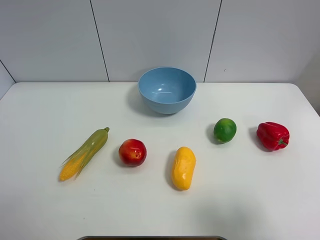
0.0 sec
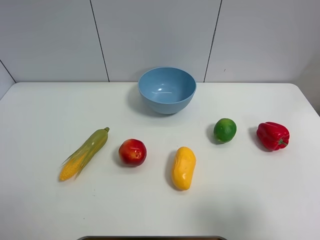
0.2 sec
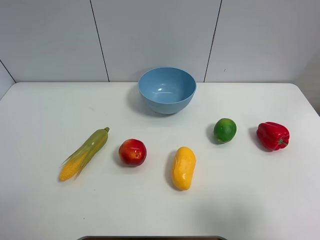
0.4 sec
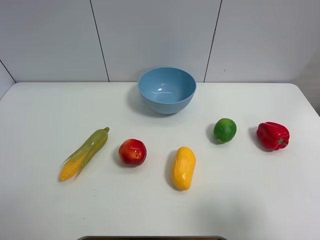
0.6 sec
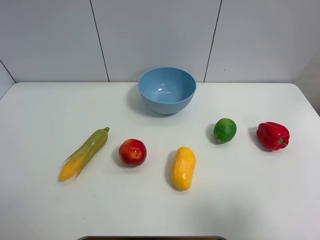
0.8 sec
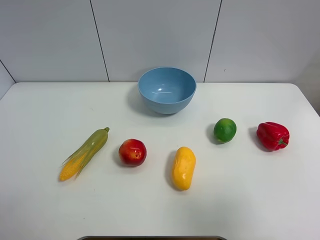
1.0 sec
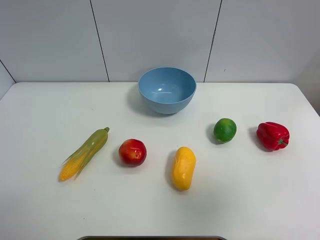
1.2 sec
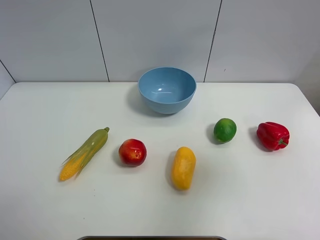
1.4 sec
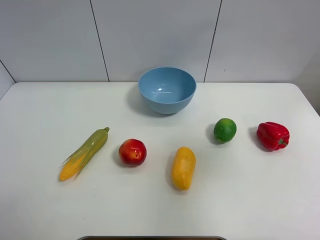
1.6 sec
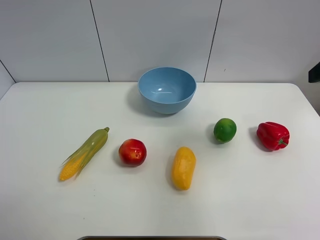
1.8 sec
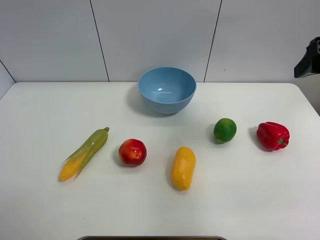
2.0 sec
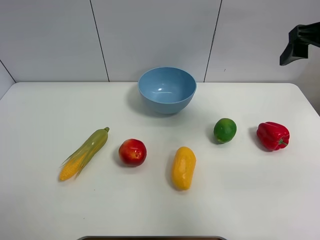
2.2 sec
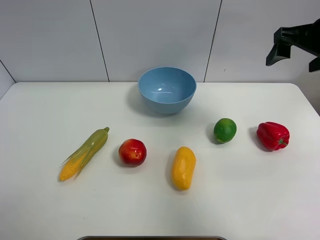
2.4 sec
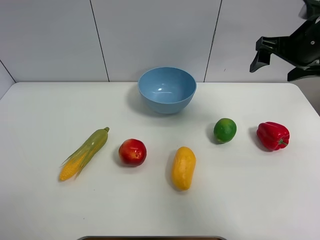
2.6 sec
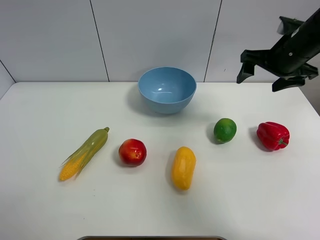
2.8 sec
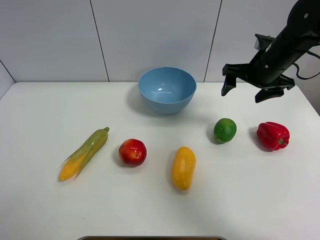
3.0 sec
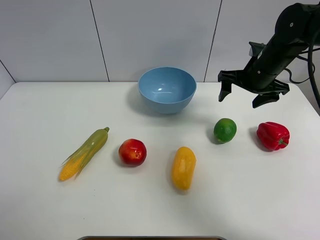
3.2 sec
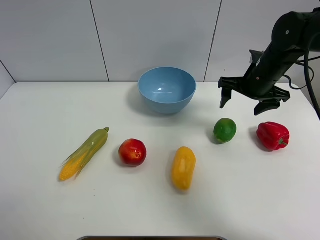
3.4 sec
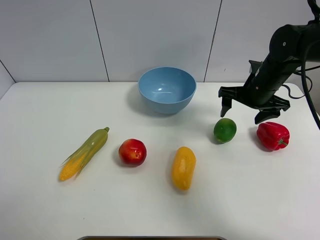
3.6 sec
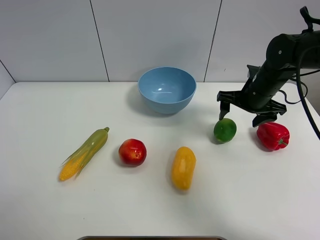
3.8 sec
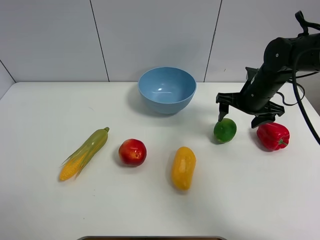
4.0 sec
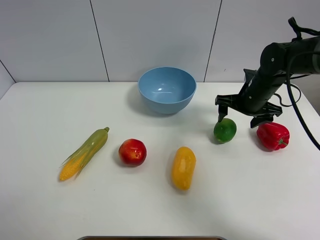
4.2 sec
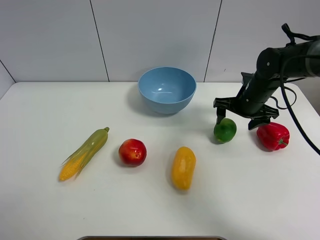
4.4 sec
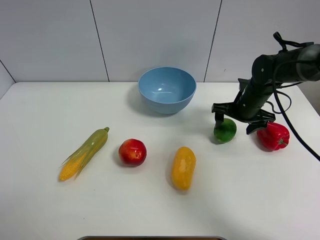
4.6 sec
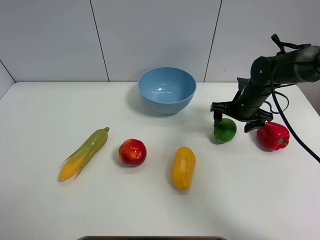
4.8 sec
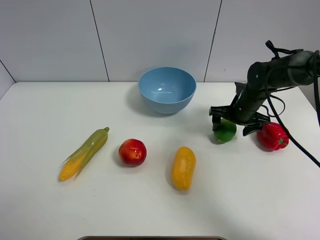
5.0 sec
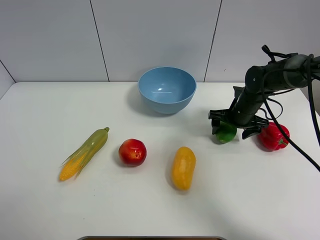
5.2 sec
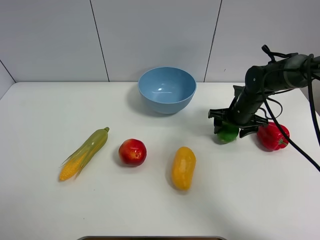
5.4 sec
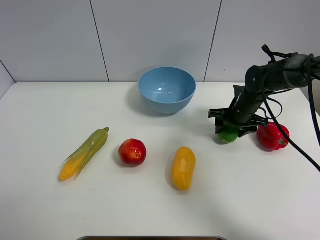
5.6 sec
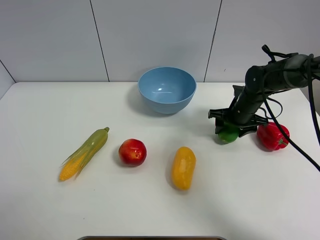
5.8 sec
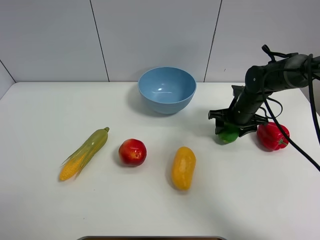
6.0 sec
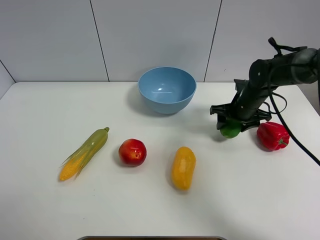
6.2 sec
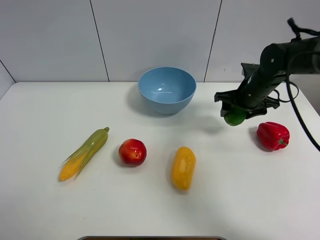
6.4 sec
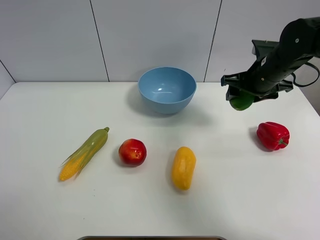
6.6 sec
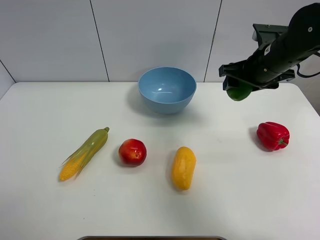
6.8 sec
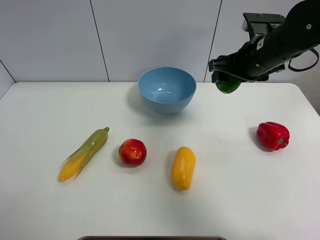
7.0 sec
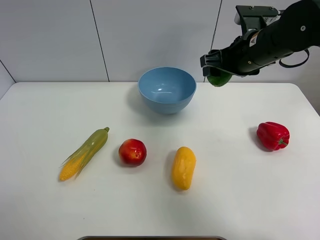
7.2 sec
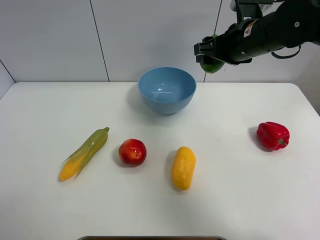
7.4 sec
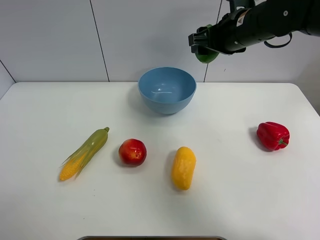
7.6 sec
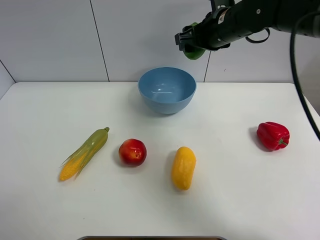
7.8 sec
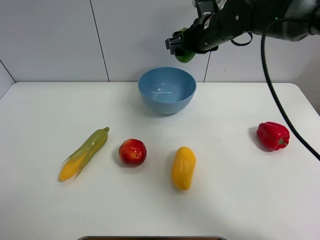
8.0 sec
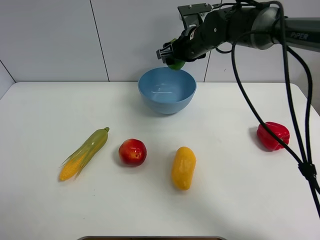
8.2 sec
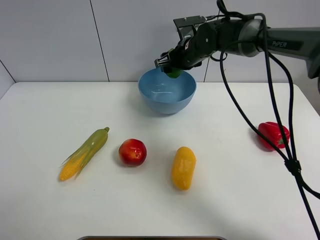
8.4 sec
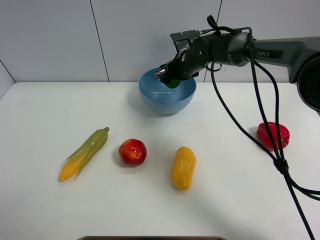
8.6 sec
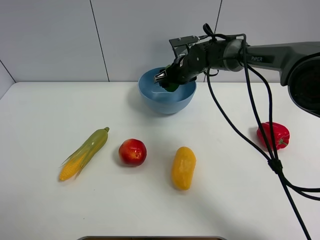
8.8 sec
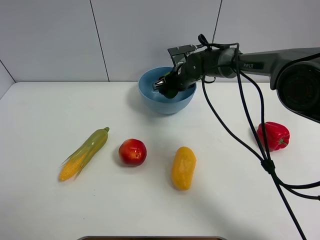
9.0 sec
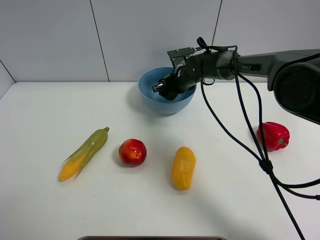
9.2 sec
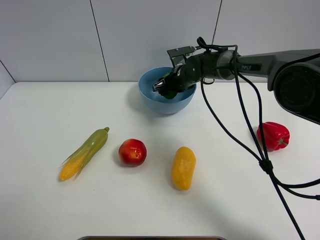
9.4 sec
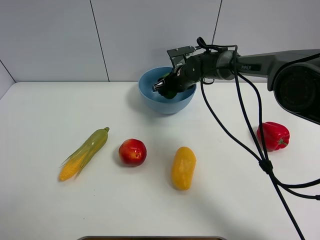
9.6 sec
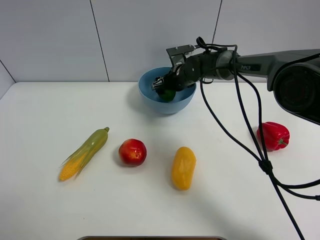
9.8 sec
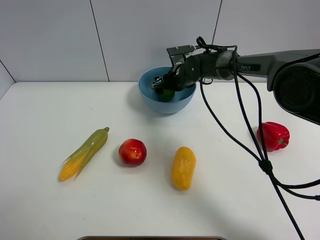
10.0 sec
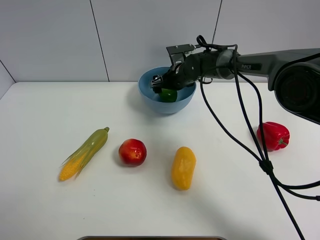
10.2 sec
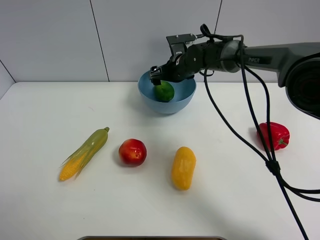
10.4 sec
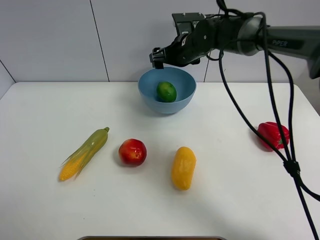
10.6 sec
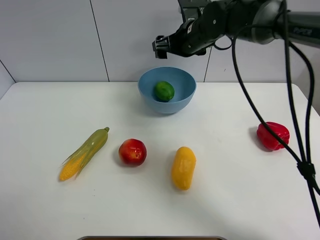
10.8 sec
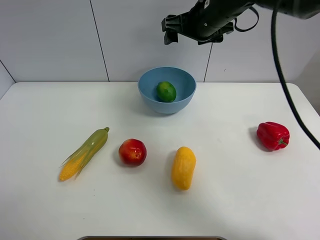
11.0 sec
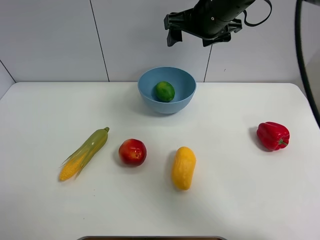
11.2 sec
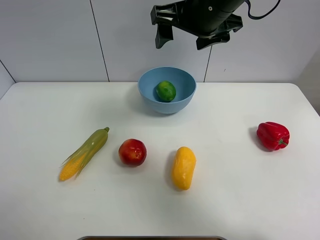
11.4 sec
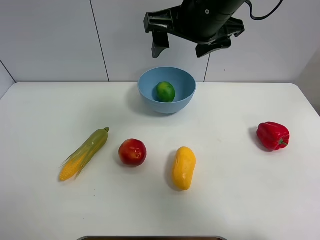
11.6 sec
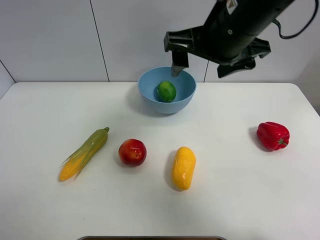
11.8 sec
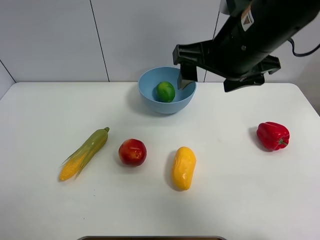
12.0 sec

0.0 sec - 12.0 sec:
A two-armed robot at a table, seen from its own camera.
Task of the whole recording: Put the three fruits on the table into a bowl.
Step, 0.0 sec - 5.6 sec: Grasp the green lemon with right gripper.
Step, 5.8 sec - 10.4 sec: Place the green lemon in the blue bowl with right gripper.
0.0 sec - 1.6 sec: The right gripper goes approximately 20 cm forward and upward.
1.6 sec - 3.0 sec: The right gripper shifts roughly 25 cm forward and downward.
3.0 sec - 4.4 sec: The right gripper moves downward, approximately 10 cm.
4.4 sec - 6.0 sec: The right gripper closes up.
6.0 sec - 7.6 sec: The right gripper travels upward by about 20 cm.
7.6 sec - 9.0 sec: The right gripper travels downward, forward and to the left by approximately 20 cm.
9.0 sec - 10.4 sec: The right gripper opens.
10.4 sec - 12.0 sec: The right gripper goes approximately 30 cm backward and upward.

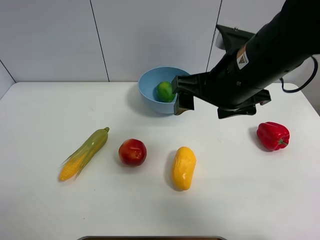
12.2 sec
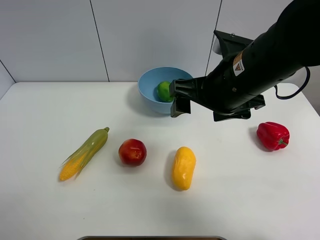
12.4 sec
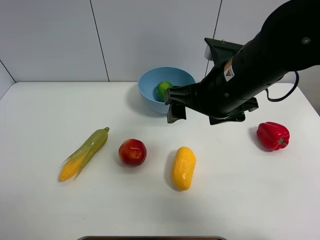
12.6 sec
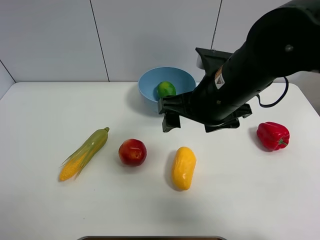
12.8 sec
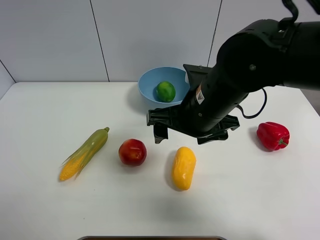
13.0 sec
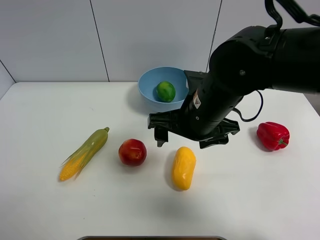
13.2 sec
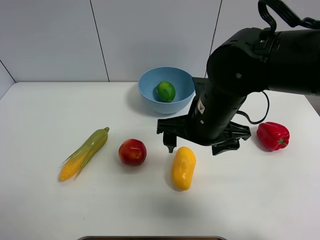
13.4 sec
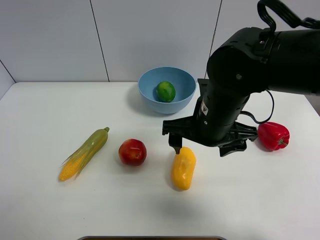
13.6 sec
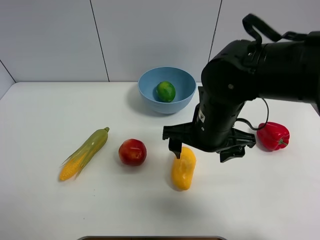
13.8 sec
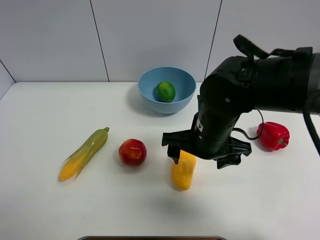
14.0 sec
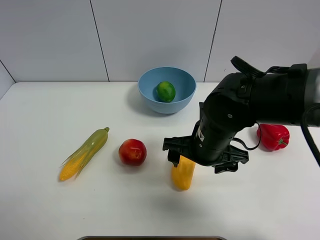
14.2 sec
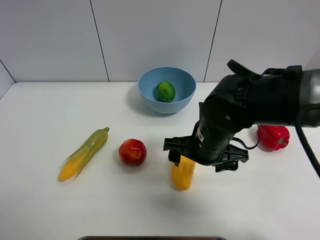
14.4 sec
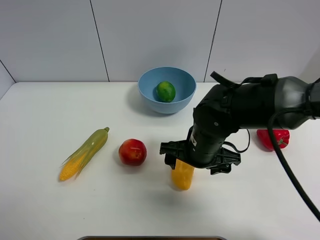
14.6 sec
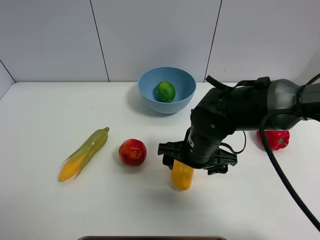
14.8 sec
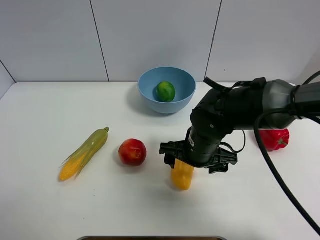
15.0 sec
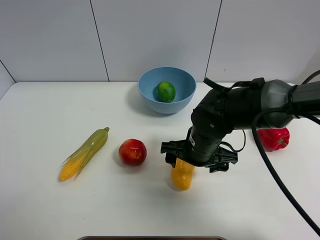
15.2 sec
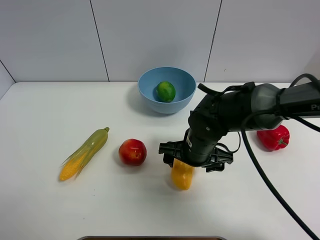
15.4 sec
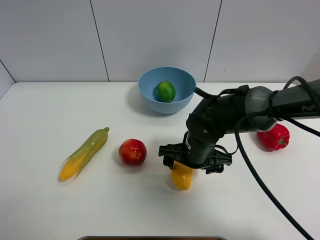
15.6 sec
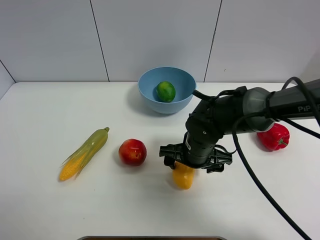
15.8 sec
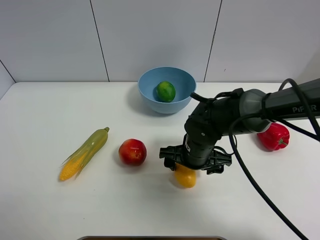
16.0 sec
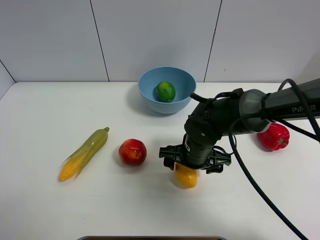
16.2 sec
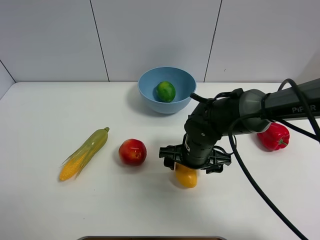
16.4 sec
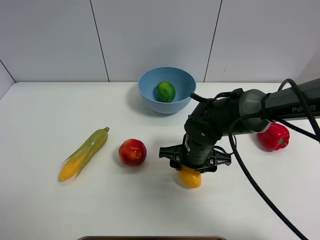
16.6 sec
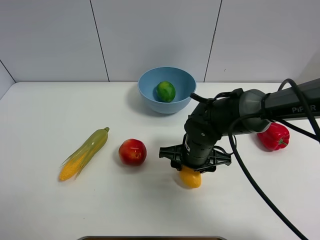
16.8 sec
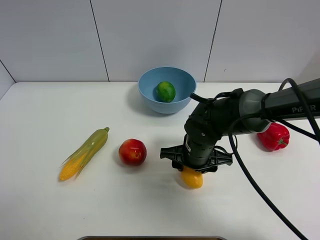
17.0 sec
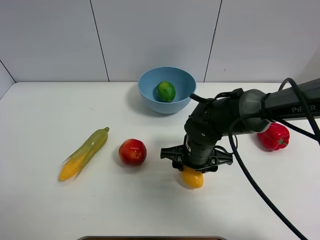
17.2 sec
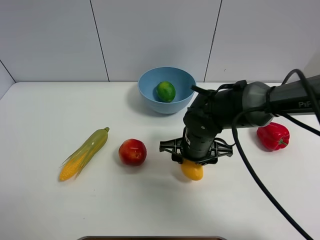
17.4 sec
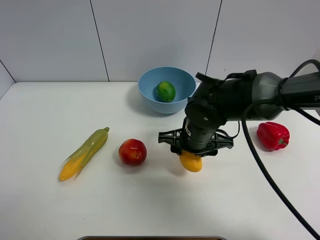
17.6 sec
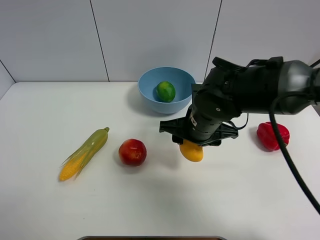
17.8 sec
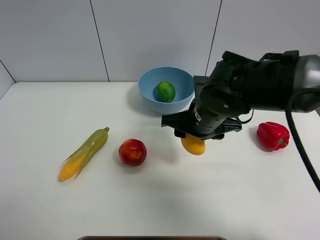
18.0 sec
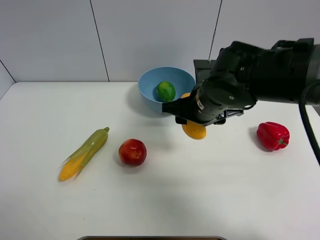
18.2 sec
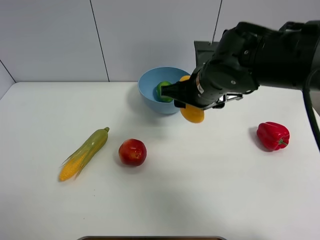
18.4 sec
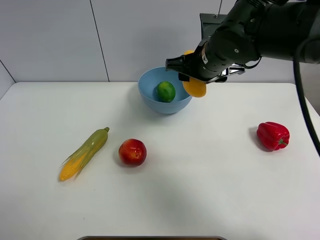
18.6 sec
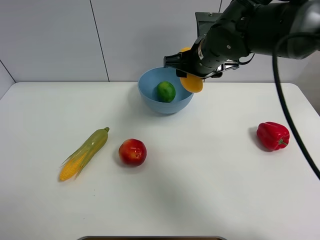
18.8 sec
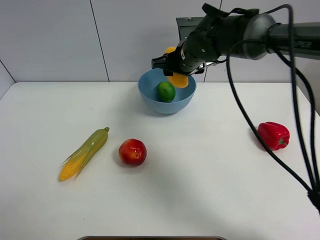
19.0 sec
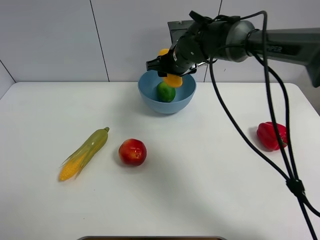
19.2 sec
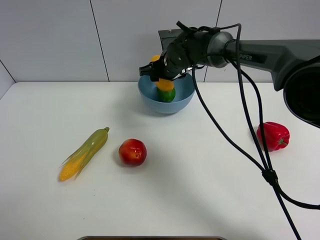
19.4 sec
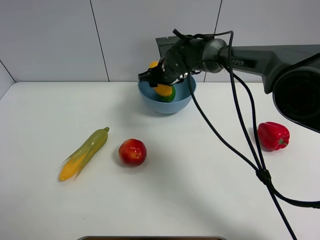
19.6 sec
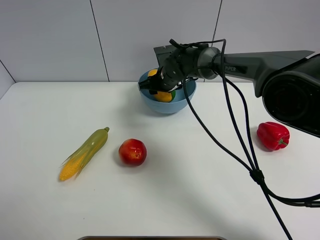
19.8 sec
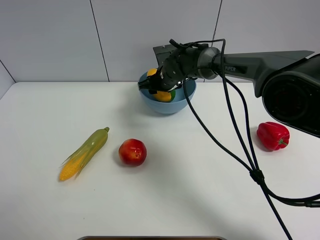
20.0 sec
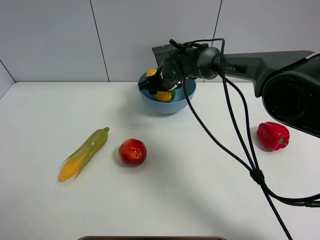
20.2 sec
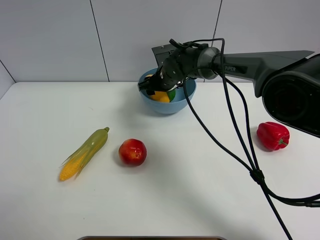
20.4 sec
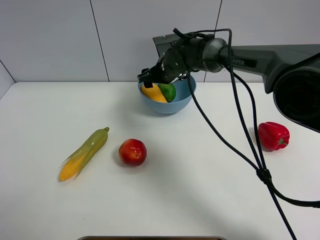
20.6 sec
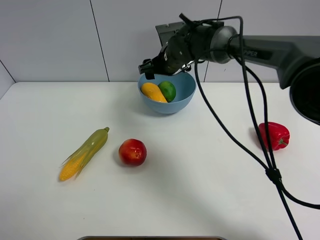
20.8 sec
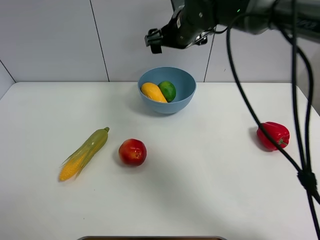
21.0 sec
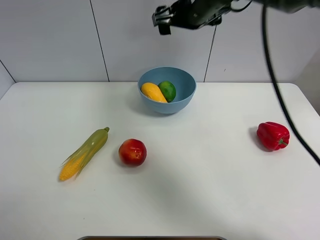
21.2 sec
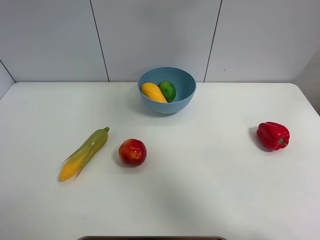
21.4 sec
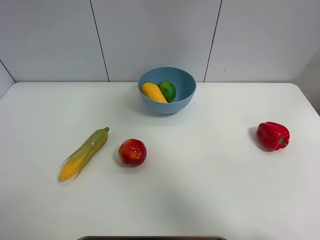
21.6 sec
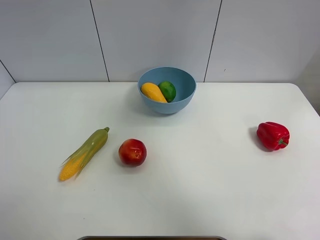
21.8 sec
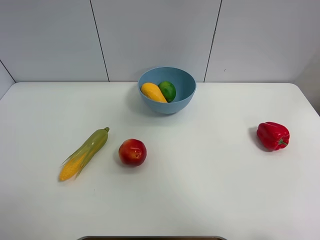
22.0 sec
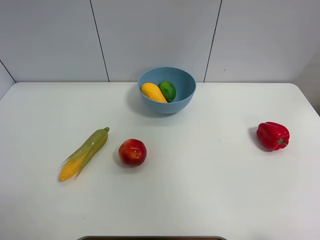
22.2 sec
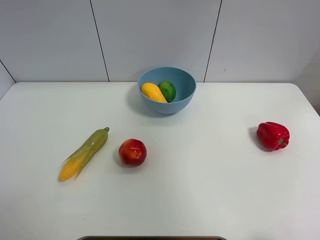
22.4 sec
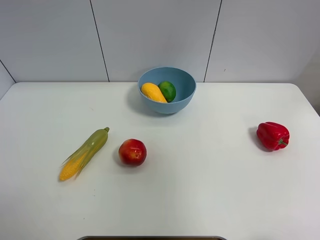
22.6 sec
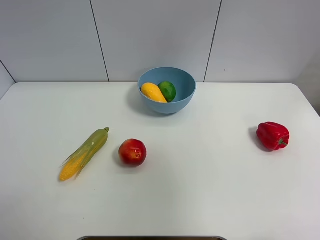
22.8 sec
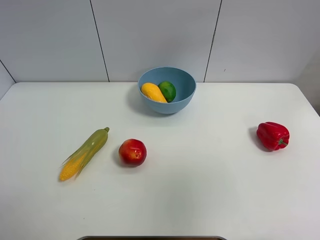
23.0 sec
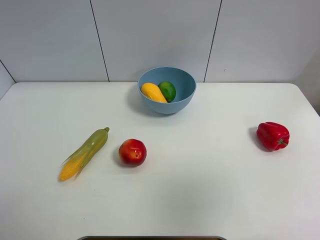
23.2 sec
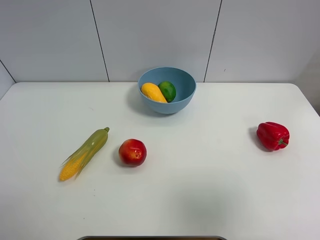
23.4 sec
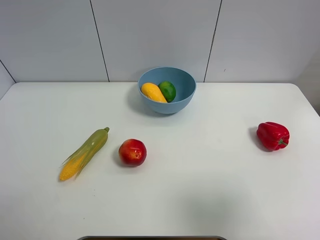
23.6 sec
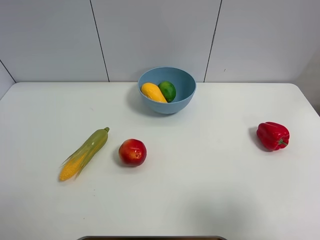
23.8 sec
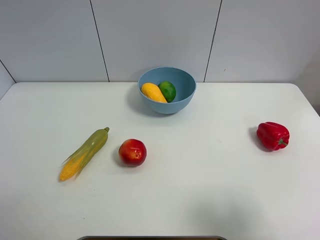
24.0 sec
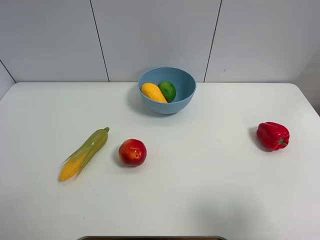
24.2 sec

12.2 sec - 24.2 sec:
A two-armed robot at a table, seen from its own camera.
Task of the whole recording: Put the three fruits on the table into a bowl.
Step, 12.2 sec - 16.8 sec: Grasp the mango with right gripper.
Step, 17.0 sec - 20.6 sec: Place the mango in the blue bowl with right gripper.
12.2 sec - 13.8 sec: The right gripper travels downward by approximately 10 cm.
13.8 sec - 15.2 sec: The right gripper shifts approximately 5 cm downward.
15.2 sec - 16.6 sec: The right gripper closes up.
16.6 sec - 18.2 sec: The right gripper is displaced upward by some 10 cm.
18.2 sec - 19.8 sec: The right gripper shifts about 20 cm forward and downward.
19.8 sec - 21.2 sec: The right gripper goes about 20 cm upward, and opens its fingers.
21.2 sec - 22.6 sec: The right gripper heads backward, to the right and upward, covering roughly 40 cm.
22.6 sec - 24.2 sec: The right gripper shifts about 25 cm downward.
